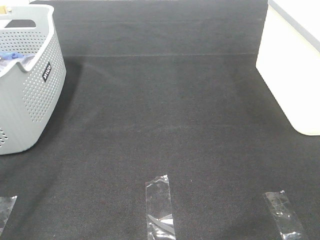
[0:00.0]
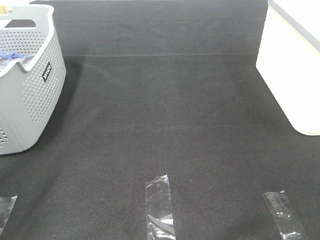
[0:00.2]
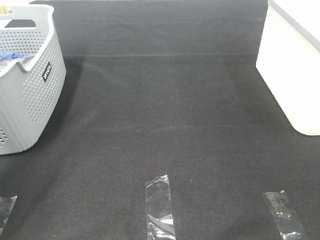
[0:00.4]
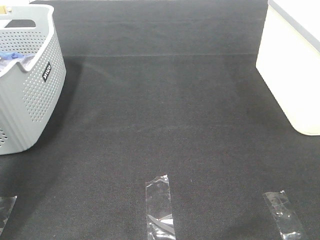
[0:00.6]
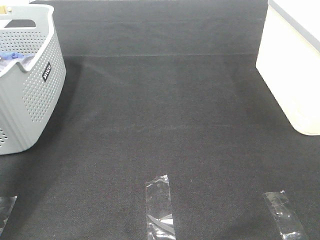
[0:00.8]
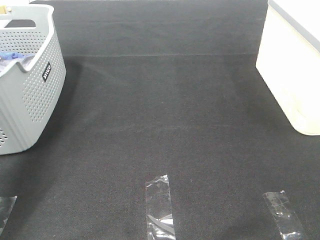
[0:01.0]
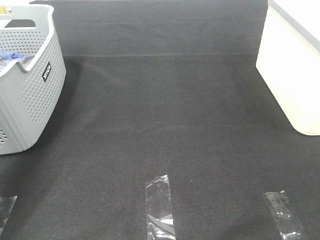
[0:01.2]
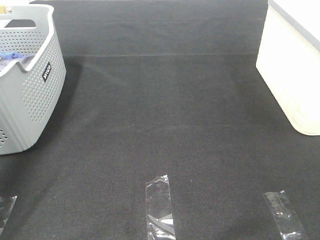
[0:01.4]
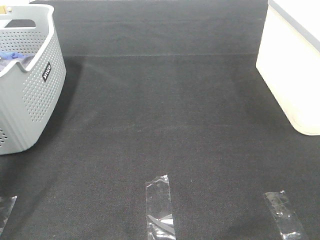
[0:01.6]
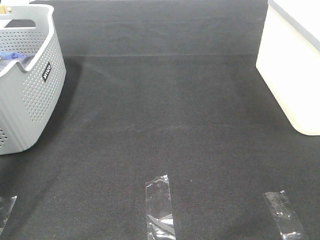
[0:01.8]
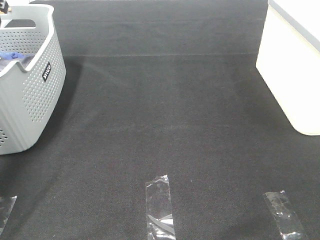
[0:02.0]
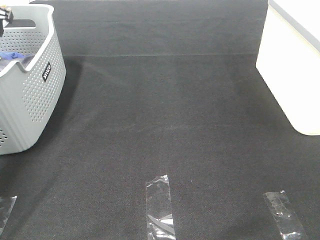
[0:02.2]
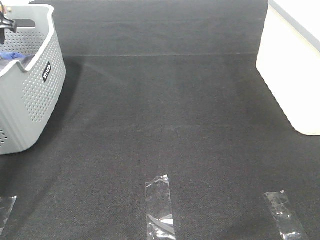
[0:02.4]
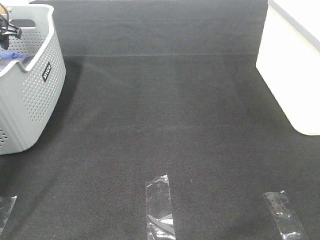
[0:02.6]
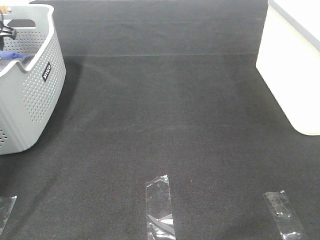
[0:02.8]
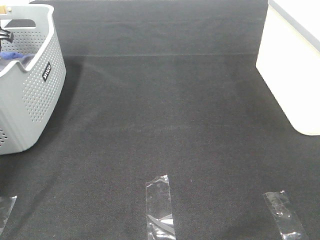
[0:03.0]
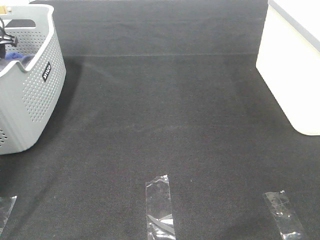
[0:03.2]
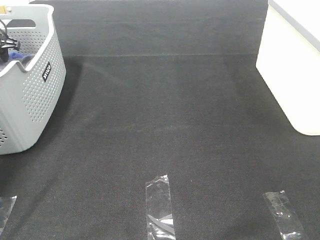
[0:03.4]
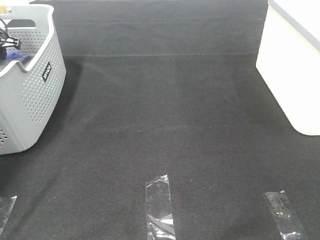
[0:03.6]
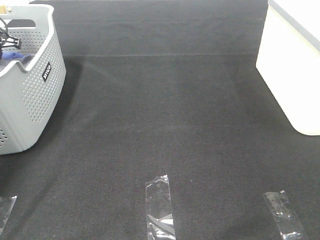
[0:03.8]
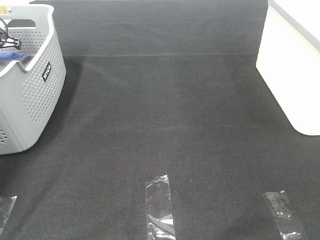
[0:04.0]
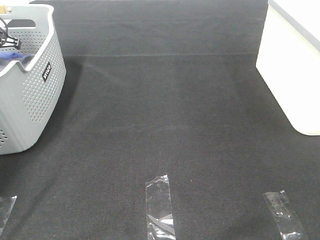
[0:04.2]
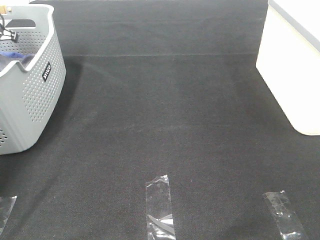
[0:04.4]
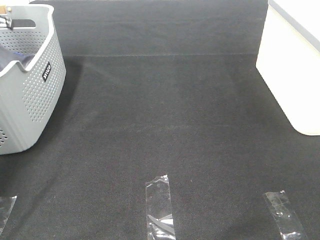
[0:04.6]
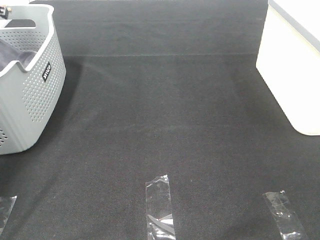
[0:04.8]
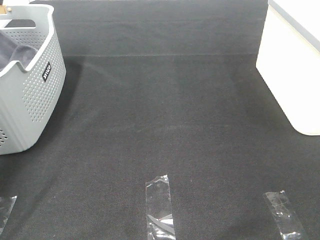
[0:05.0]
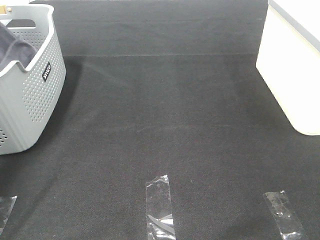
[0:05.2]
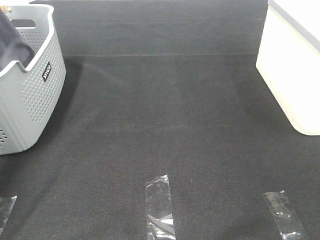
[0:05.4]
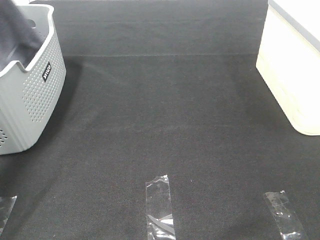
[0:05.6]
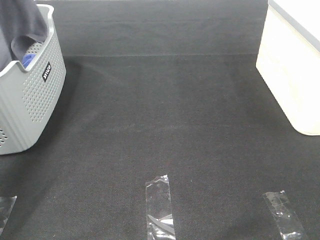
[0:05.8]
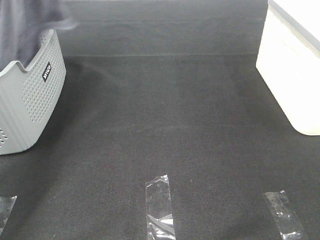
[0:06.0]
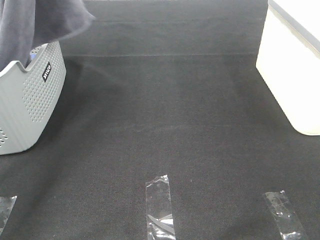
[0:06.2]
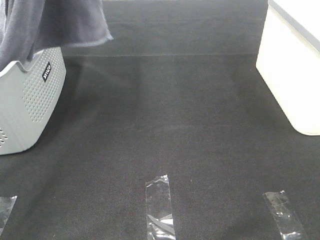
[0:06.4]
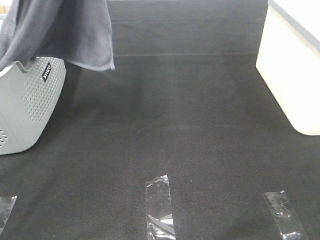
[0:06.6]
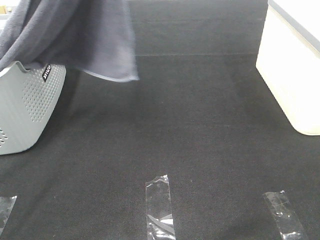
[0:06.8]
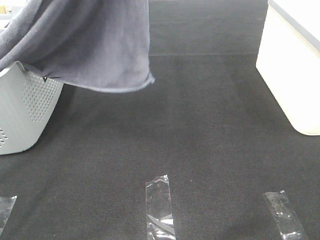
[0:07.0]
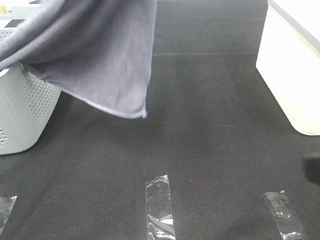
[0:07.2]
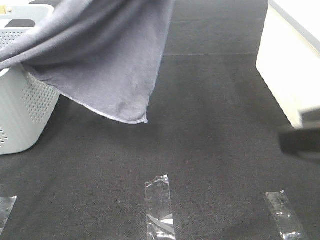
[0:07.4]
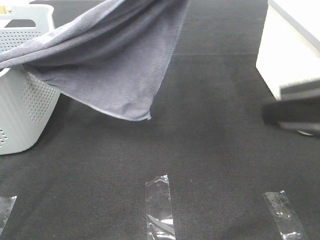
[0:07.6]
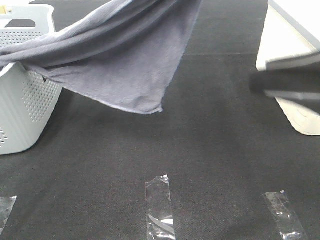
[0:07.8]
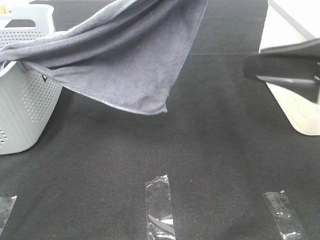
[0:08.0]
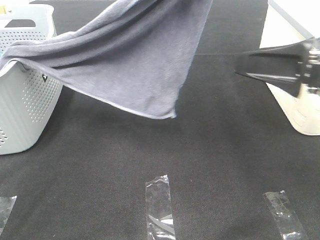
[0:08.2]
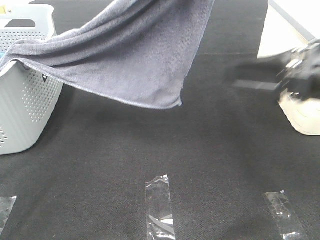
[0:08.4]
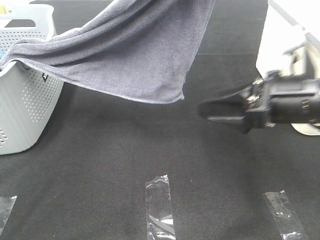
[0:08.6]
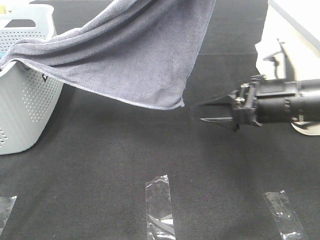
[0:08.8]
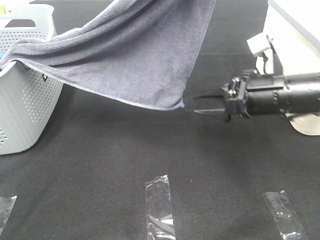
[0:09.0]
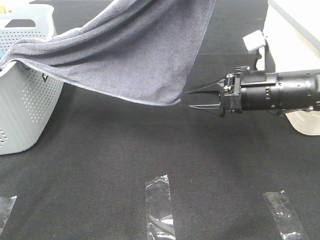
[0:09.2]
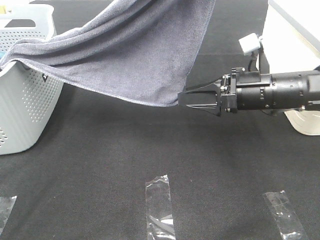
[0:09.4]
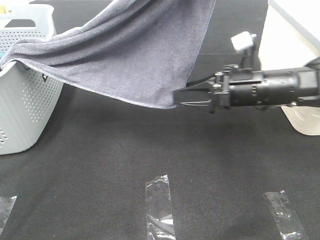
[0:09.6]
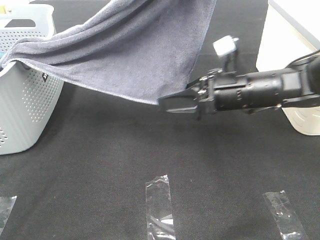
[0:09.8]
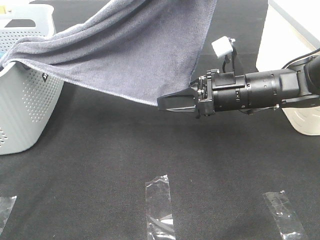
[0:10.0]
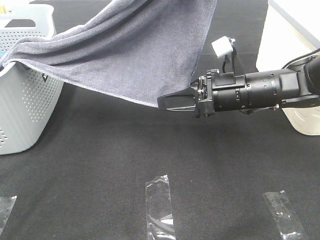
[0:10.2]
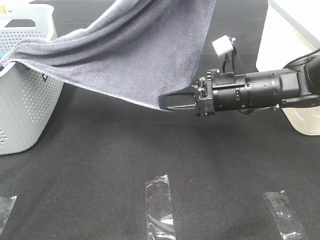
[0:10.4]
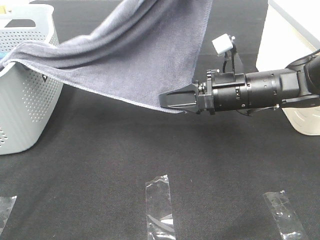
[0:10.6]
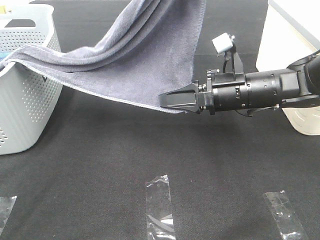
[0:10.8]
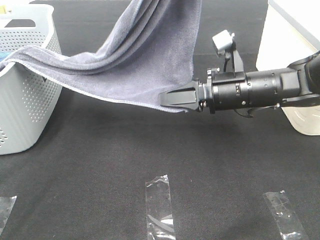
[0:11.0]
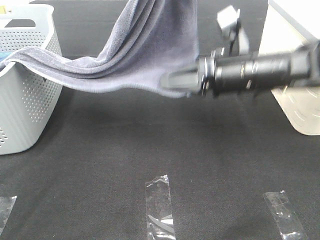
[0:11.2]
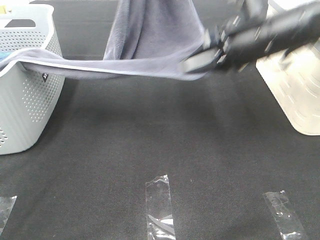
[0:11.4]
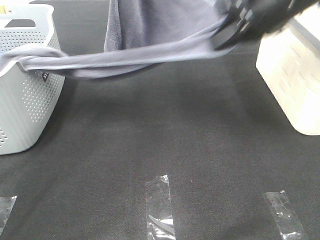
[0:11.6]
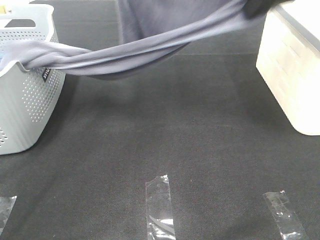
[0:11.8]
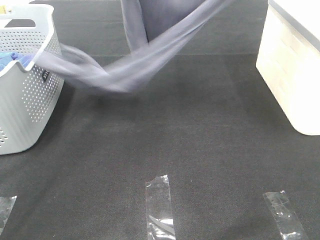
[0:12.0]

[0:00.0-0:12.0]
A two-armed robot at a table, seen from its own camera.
Task of the whole recording: Remove the towel and place it.
Step, 0:02.6 to 0:08.8: Right hand: grab a corner of the grey towel and straighten it.
0:00.0 to 0:01.6: The left gripper is displaced forward by some 40 cm.
0:01.6 to 0:03.0: The left gripper travels downward and forward by roughly 15 cm.
0:04.4 to 0:06.0: The left gripper goes approximately 30 cm upward, to the right and backward.
0:06.0 to 0:07.6: The right gripper is displaced forward by roughly 15 cm. Meanwhile the left gripper is displaced to the right and backward by approximately 25 cm.
0:07.6 to 0:09.0: The right gripper travels forward and downward by roughly 20 cm.
0:09.0 to 0:10.4: The right gripper changes place by approximately 5 cm, and closes its fingers.
0:10.4 to 0:12.0: The right gripper goes approximately 30 cm upward. Meanwhile the left gripper shifts about 10 cm to the left and forward.

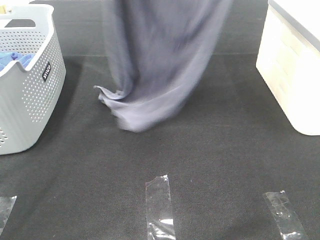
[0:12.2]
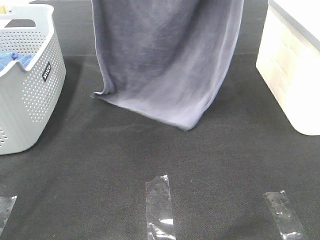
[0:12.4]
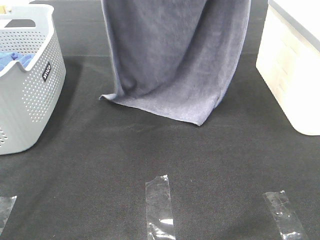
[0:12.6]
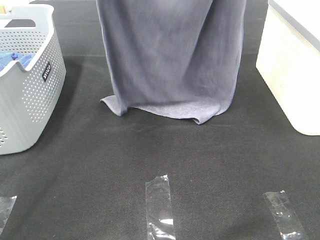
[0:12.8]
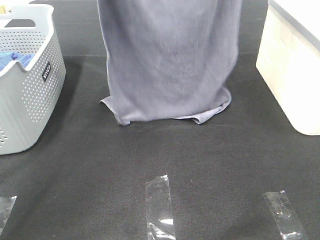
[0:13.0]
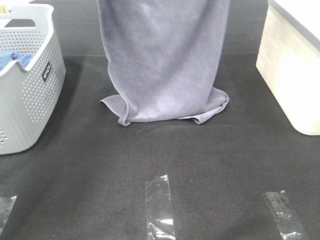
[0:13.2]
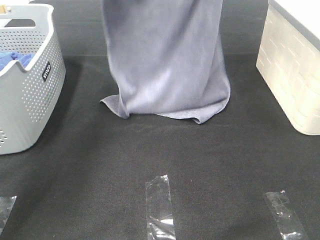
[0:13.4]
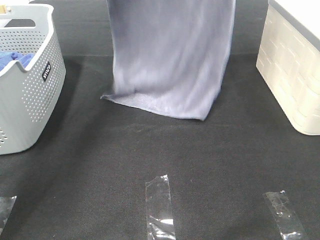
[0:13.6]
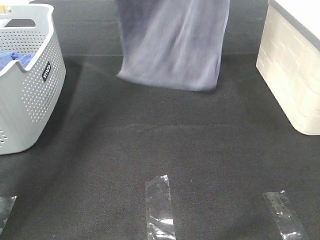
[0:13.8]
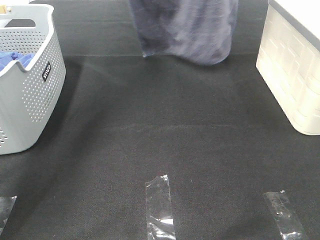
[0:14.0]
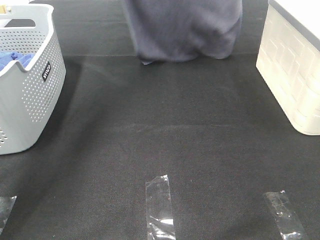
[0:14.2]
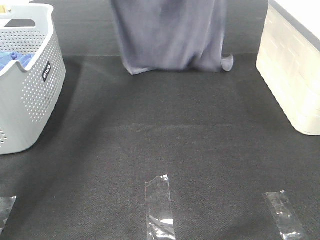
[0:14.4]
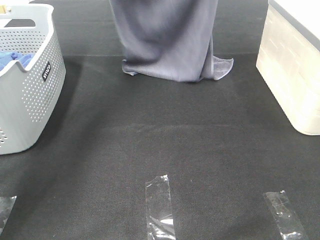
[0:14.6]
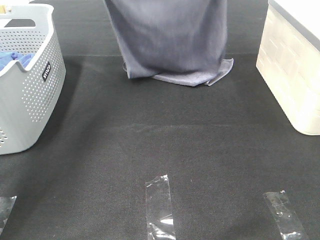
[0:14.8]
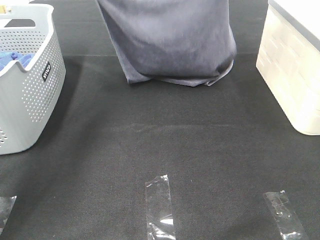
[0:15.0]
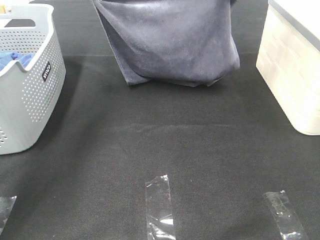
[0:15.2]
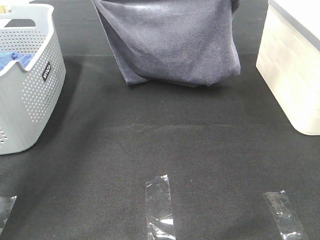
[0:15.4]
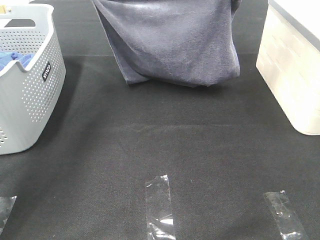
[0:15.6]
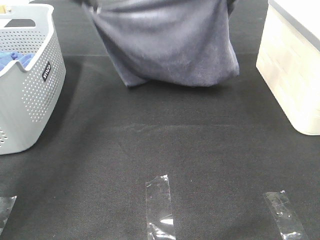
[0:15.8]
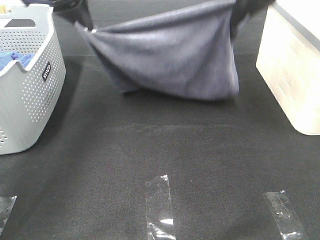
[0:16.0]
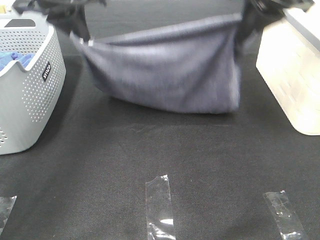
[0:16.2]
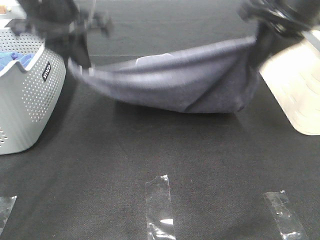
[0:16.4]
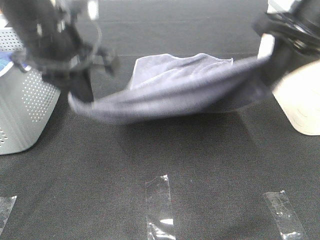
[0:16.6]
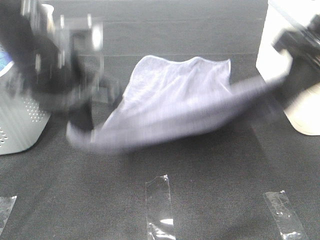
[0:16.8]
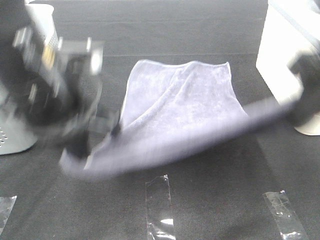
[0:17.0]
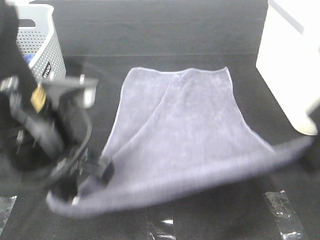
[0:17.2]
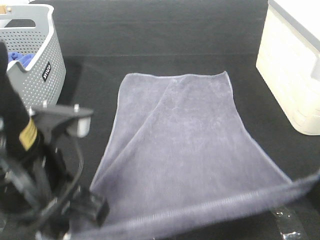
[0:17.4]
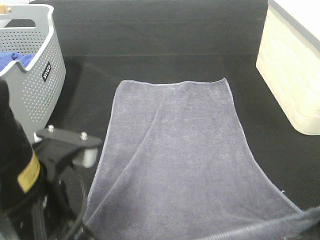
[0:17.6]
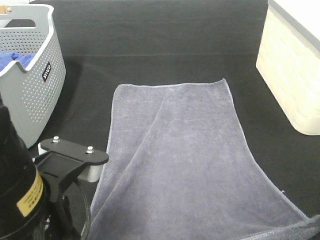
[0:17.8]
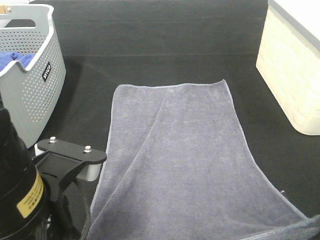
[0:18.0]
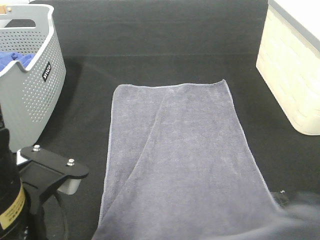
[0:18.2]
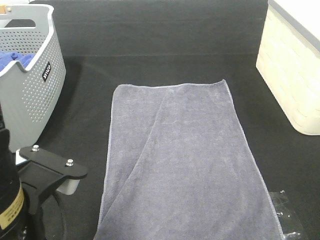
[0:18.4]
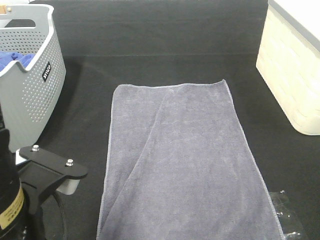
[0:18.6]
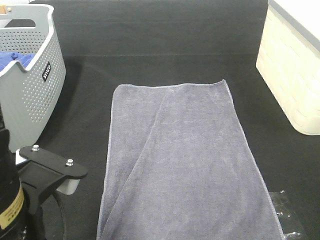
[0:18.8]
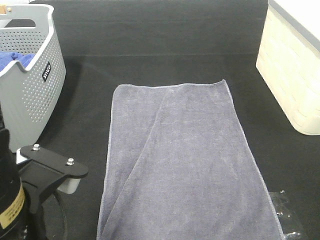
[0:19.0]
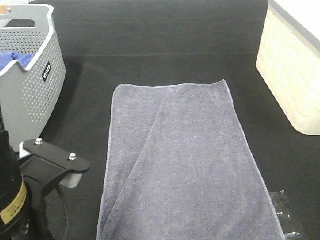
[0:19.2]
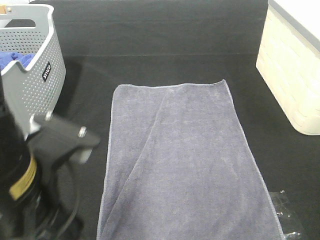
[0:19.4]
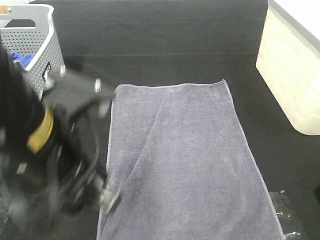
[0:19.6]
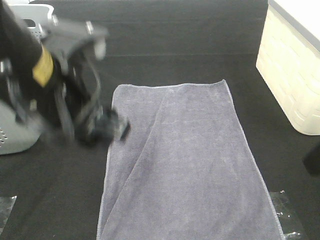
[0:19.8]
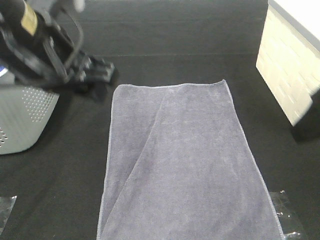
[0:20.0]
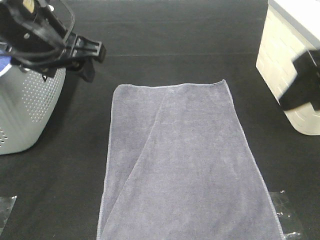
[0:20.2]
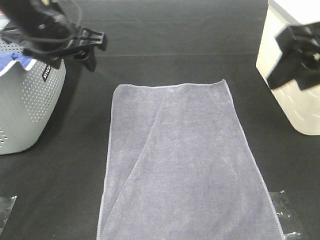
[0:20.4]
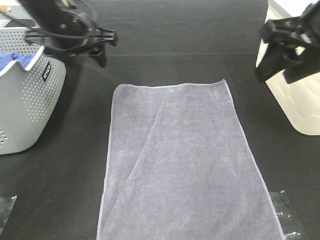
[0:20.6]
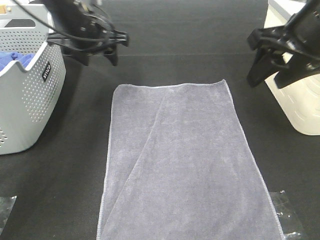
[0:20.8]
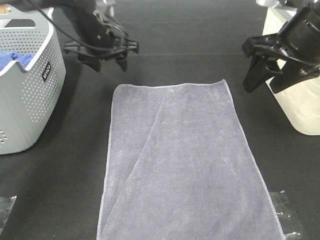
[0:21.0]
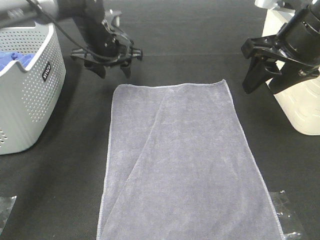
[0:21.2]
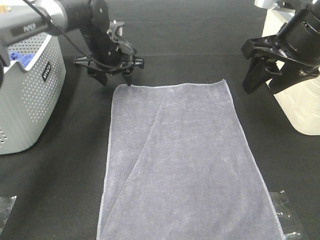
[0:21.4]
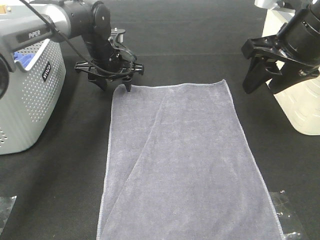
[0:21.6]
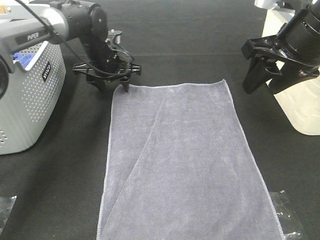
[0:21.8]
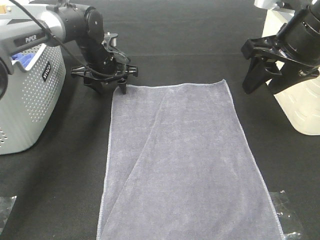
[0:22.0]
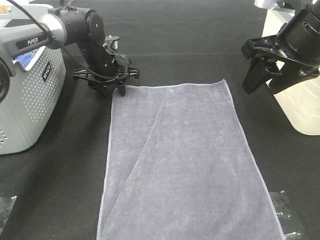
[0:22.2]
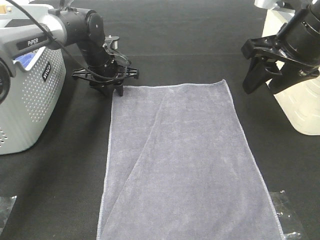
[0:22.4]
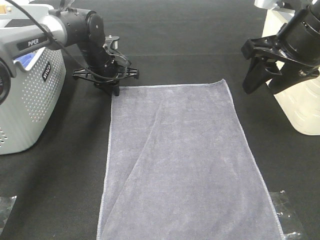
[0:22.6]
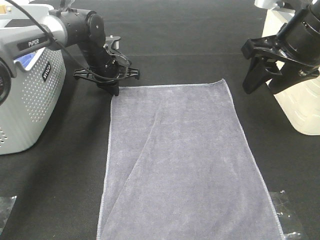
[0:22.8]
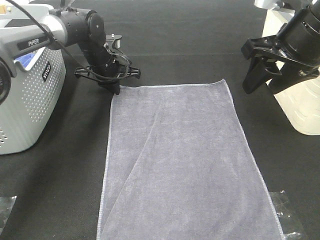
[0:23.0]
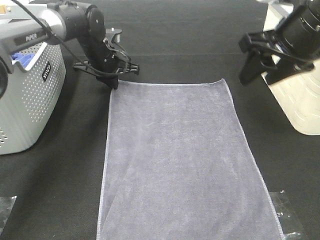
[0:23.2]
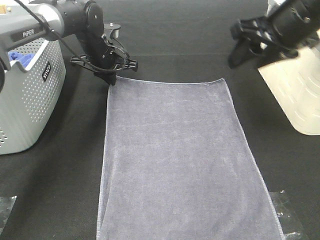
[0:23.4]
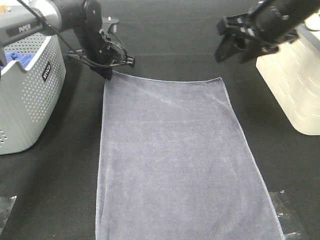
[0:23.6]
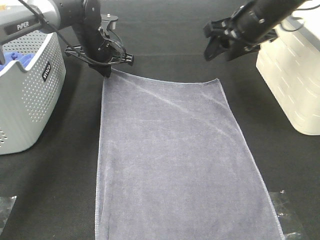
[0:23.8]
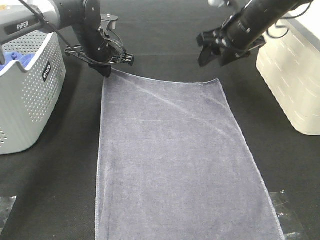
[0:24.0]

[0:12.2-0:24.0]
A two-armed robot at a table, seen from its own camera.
Task of the whole recording: Remove the towel and place it.
Step, 0:14.2 to 0:21.8: Left hand:adjust the gray towel.
Step, 0:14.2 to 0:21.8: Right hand:adjust the gray towel.
0:12.2 to 0:13.6: The left gripper shifts about 15 cm forward and downward. The right gripper travels forward by some 15 cm.
0:13.6 to 0:15.2: The grippers both shift downward by roughly 10 cm.
0:15.2 to 0:16.6: Both grippers move backward, some 20 cm.
0:16.6 to 0:18.2: Both grippers move backward, roughly 20 cm. The left gripper opens.
0:18.2 to 0:19.6: The left gripper shifts by approximately 5 cm, and opens up; the right gripper opens its fingers.
0:19.6 to 0:21.0: The left gripper goes some 35 cm forward. The right gripper heads forward, covering approximately 20 cm.
0:21.0 to 0:22.6: The left gripper shifts approximately 10 cm downward, and closes its fingers.
0:22.6 to 0:24.0: The right gripper moves forward and downward, some 15 cm.
